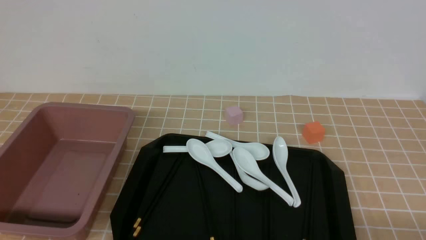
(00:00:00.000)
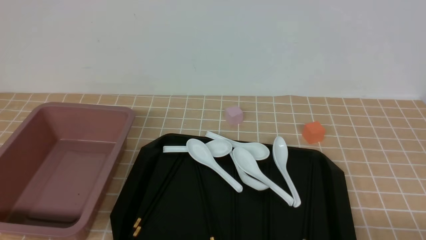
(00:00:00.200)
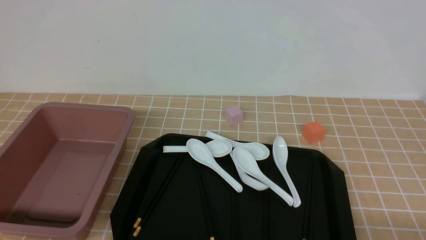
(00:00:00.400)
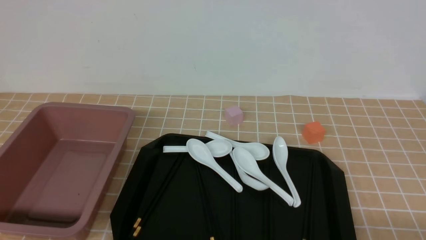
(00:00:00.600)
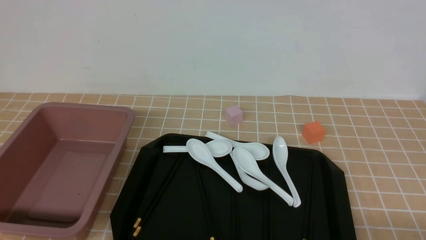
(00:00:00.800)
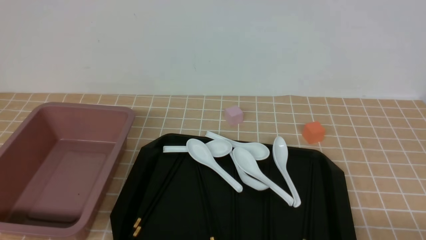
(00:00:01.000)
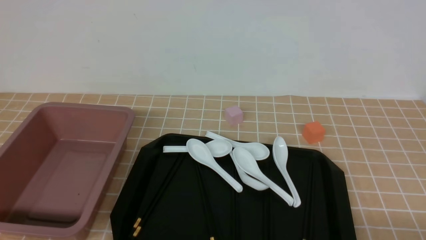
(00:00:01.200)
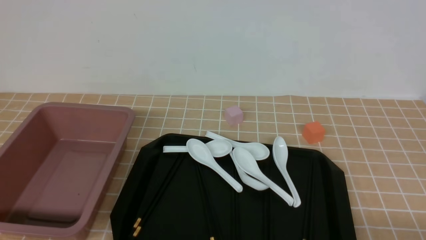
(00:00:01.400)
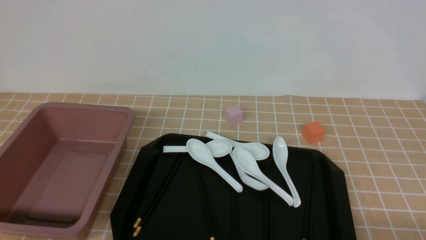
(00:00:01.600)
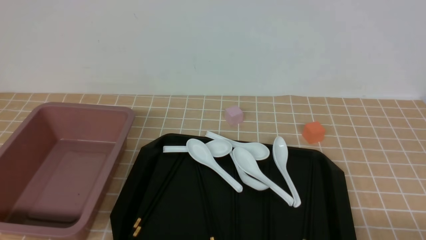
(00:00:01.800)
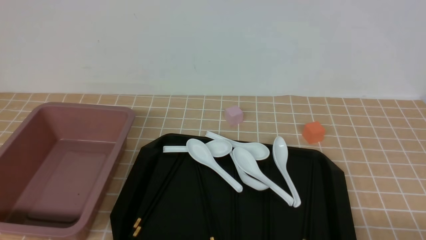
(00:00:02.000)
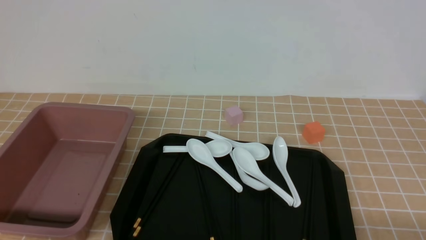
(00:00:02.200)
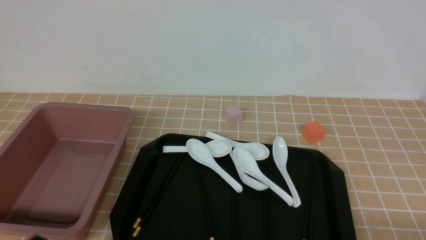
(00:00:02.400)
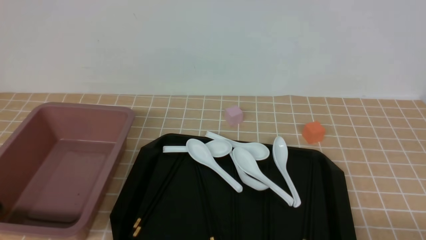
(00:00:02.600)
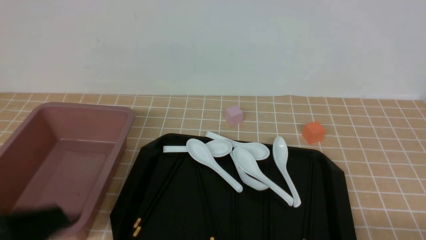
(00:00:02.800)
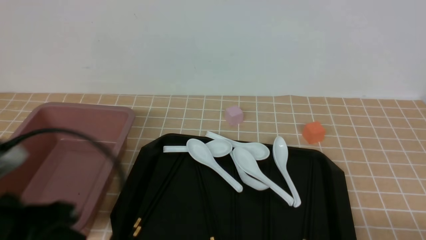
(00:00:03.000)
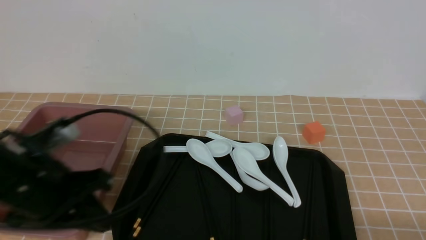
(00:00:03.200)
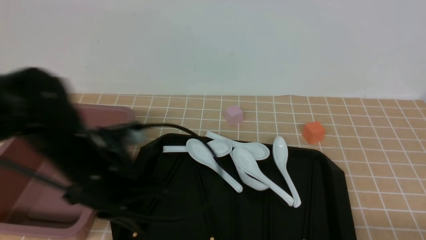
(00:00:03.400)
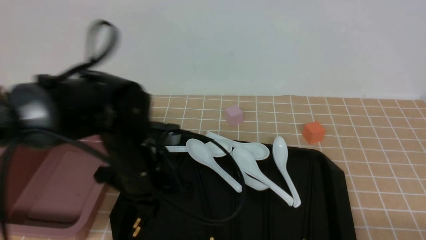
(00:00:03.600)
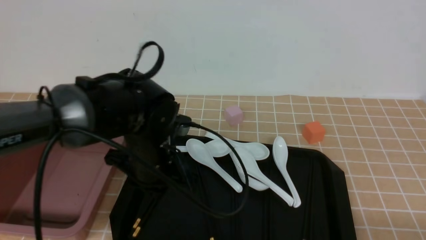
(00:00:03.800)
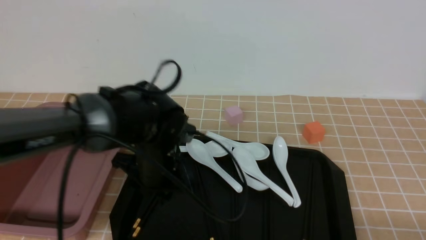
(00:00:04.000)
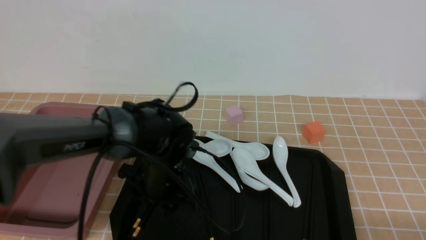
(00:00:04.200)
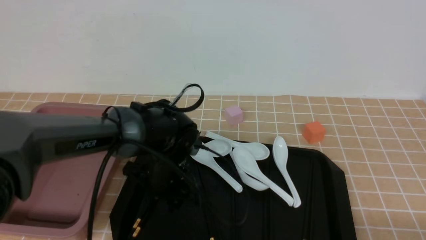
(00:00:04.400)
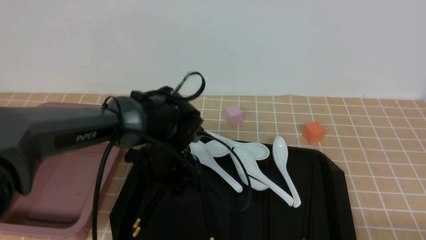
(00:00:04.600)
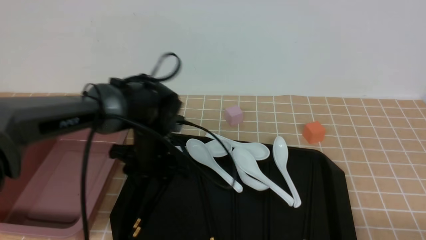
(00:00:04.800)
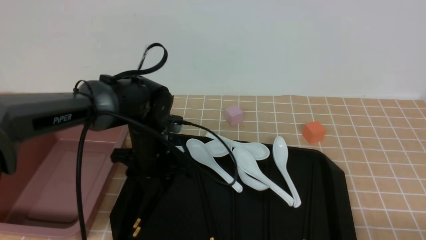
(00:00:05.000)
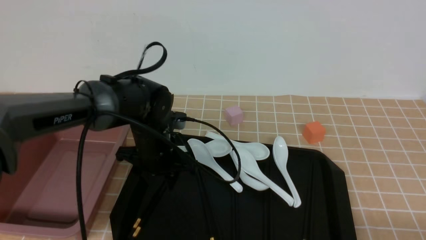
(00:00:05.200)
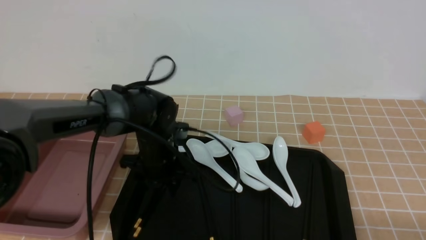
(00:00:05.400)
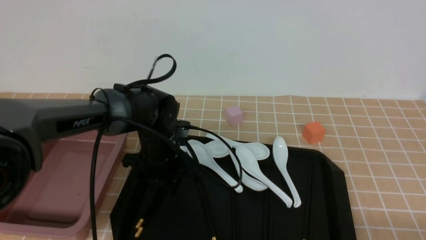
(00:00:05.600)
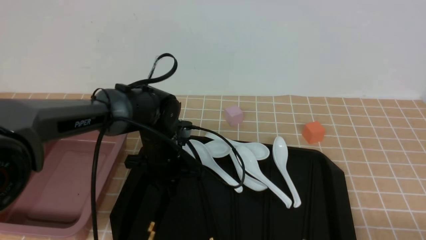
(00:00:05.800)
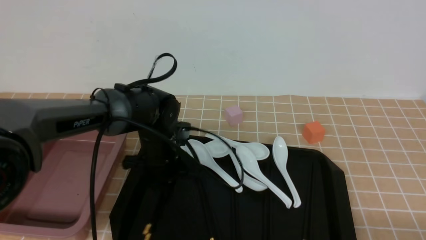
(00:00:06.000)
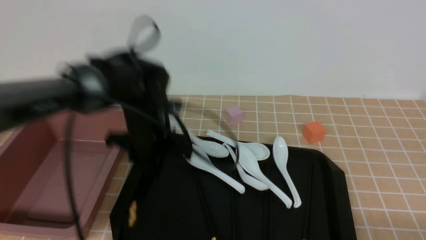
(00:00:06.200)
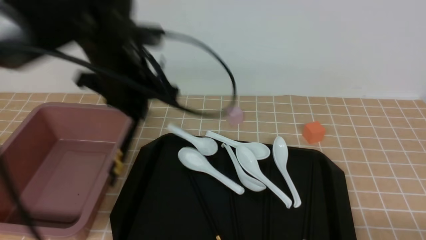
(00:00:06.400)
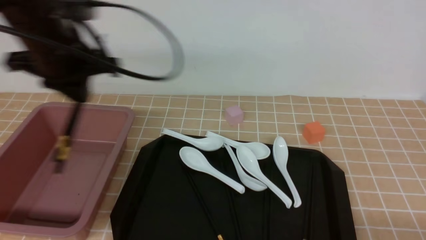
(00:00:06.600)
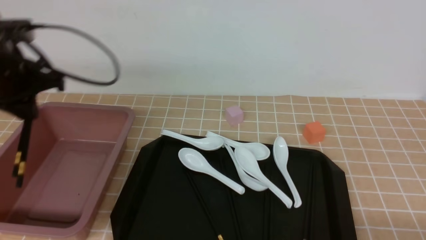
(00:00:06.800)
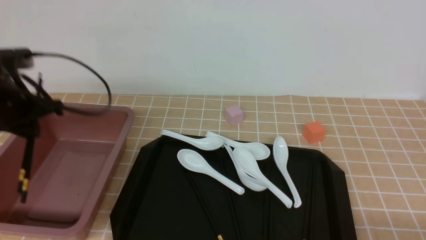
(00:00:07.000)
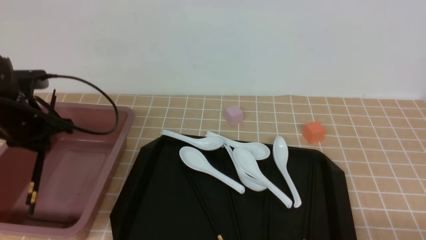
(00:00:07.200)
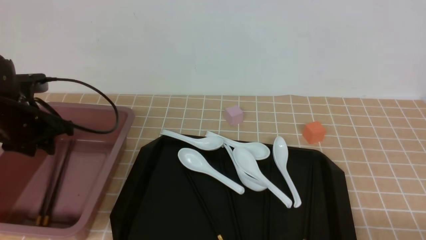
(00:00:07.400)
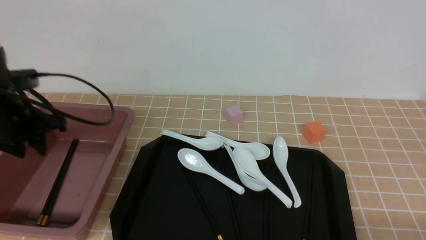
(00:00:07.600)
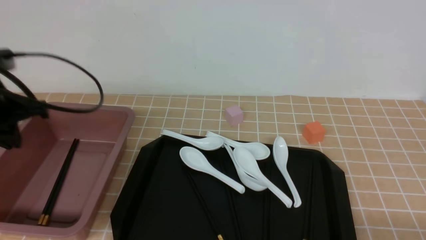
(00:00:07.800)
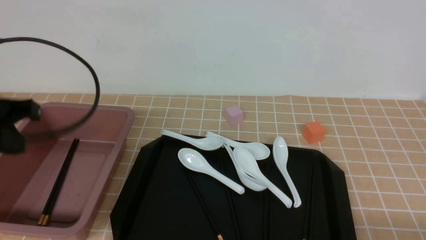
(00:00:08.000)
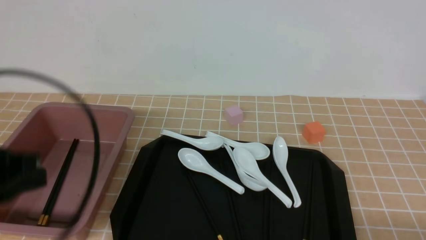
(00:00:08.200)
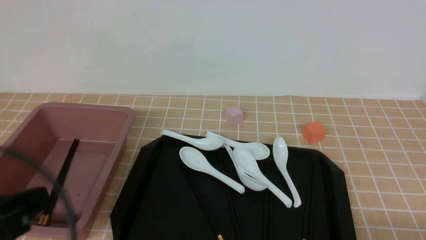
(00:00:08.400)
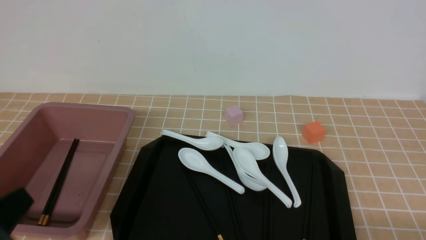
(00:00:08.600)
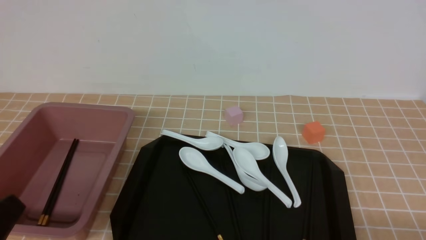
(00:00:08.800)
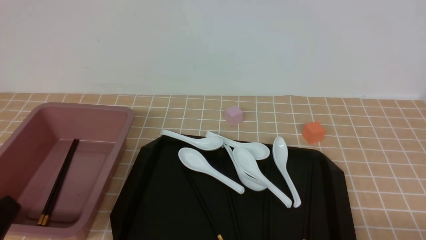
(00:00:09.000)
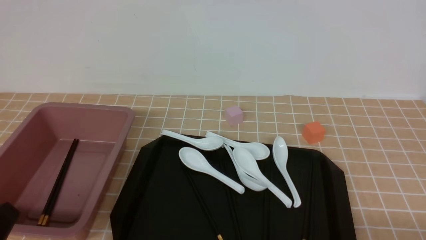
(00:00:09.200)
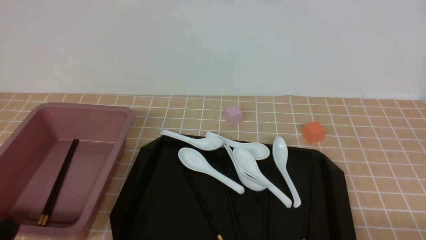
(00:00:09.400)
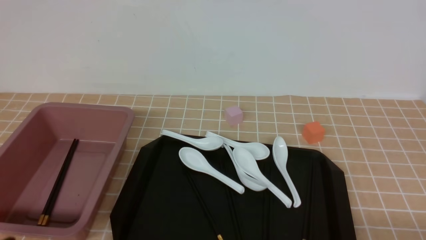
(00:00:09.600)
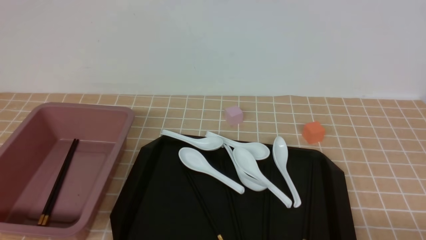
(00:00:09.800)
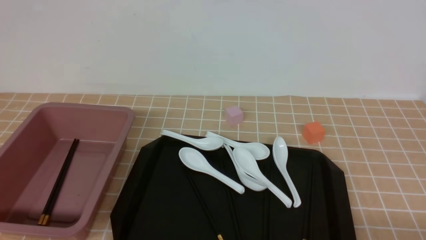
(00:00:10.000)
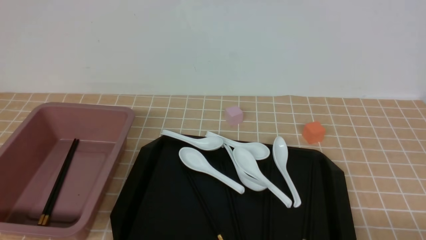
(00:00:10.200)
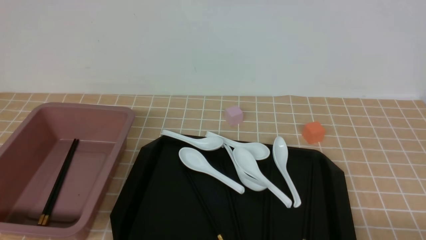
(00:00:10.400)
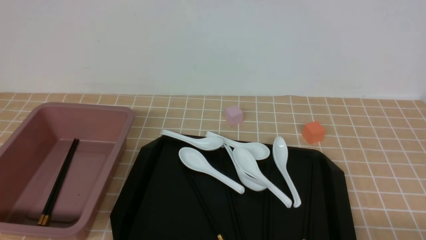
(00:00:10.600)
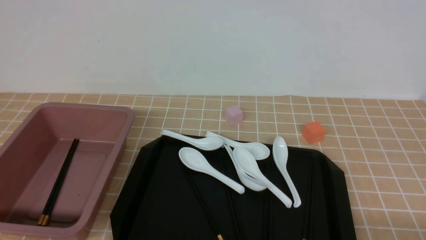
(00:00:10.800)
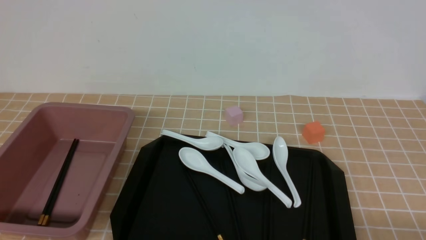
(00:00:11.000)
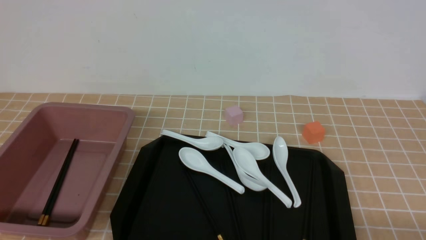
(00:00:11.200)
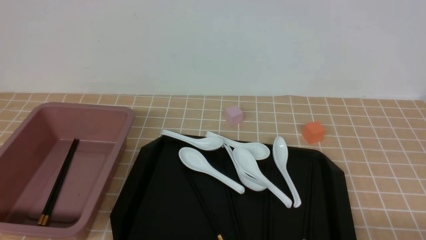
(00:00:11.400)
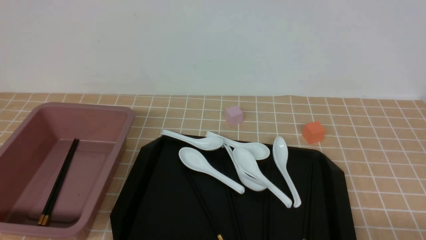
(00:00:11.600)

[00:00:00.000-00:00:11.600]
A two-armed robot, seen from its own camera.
Step, 00:00:00.000 to 00:00:06.200: use the left arm to grab a pair of chopsticks.
Step, 00:00:06.400 to 00:00:07.600: use the left arm to put the chopsticks into the lunch box.
00:00:00.000 to 00:00:01.400: Neither gripper changes place.
00:00:01.400 to 00:00:02.800: The left gripper moves upward, some 15 cm, and closes up.
00:00:02.800 to 00:00:04.400: The left gripper is displaced forward, to the right and downward by approximately 30 cm, and opens.
00:00:04.400 to 00:00:05.800: The left gripper closes.
00:00:05.800 to 00:00:07.200: The left gripper moves to the left and upward, roughly 25 cm.
00:00:07.200 to 00:00:08.800: The left gripper shifts approximately 30 cm backward, and closes.
00:00:08.800 to 00:00:10.200: The left gripper travels downward by some 10 cm.
00:00:10.200 to 00:00:11.600: Both grippers stay put.
